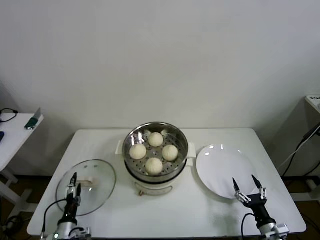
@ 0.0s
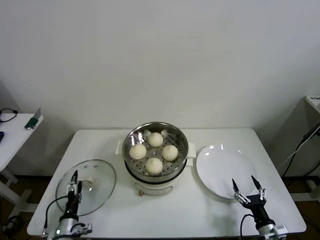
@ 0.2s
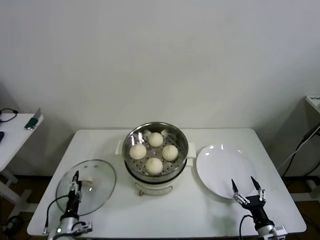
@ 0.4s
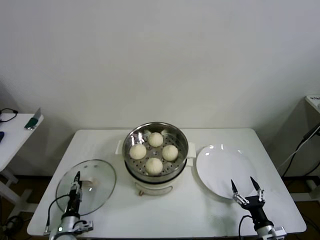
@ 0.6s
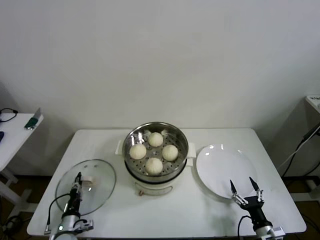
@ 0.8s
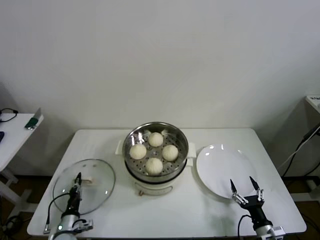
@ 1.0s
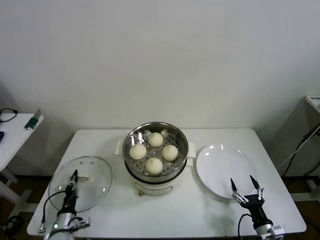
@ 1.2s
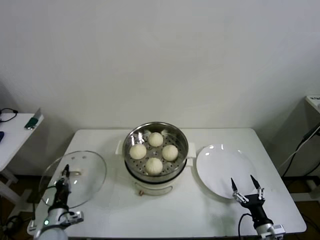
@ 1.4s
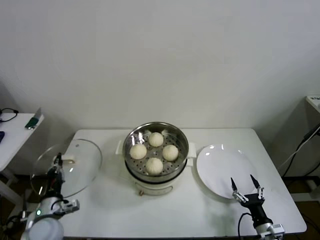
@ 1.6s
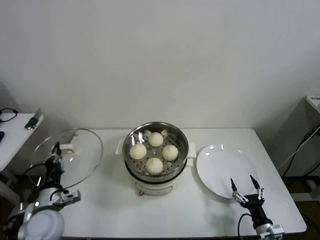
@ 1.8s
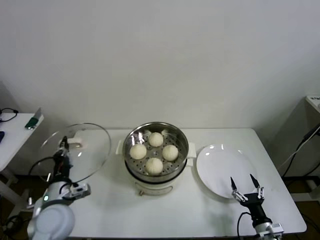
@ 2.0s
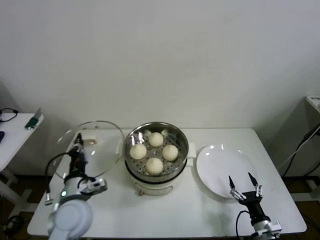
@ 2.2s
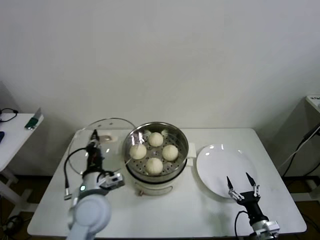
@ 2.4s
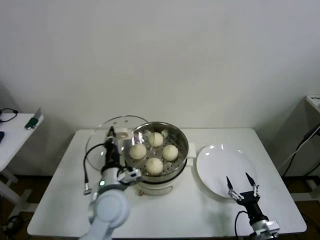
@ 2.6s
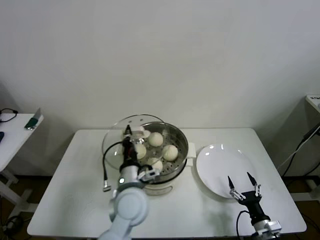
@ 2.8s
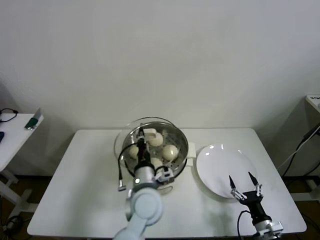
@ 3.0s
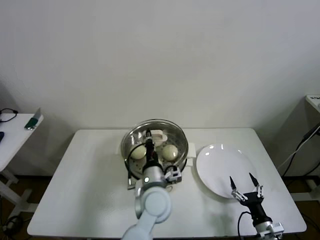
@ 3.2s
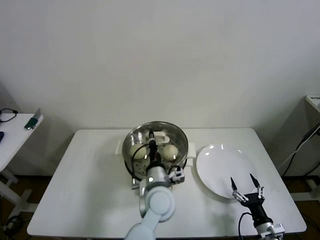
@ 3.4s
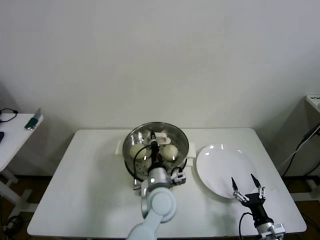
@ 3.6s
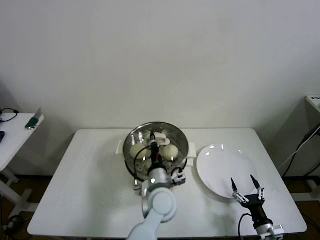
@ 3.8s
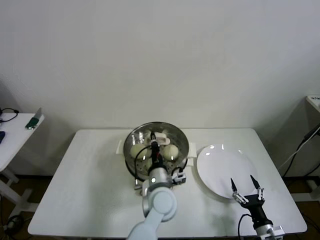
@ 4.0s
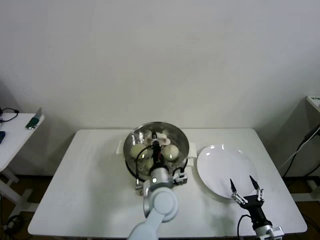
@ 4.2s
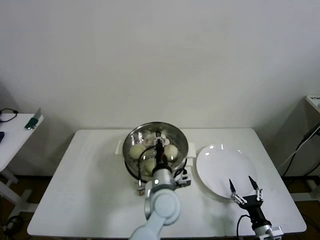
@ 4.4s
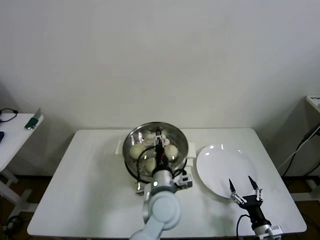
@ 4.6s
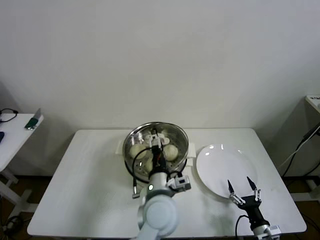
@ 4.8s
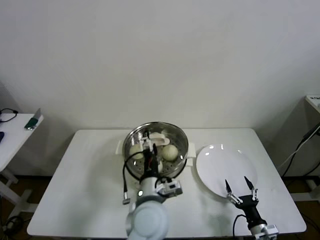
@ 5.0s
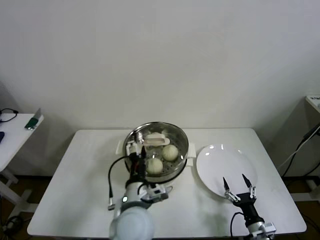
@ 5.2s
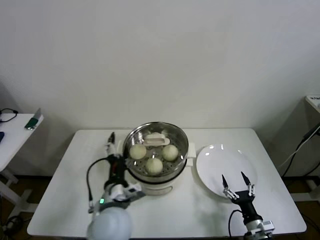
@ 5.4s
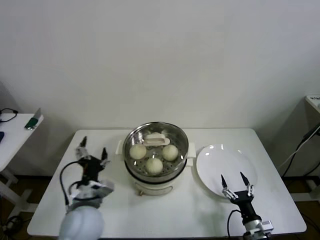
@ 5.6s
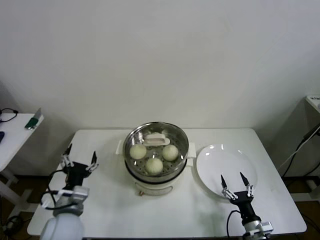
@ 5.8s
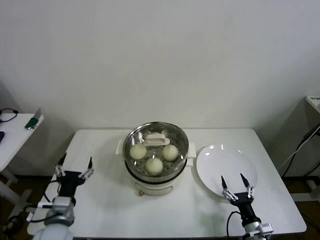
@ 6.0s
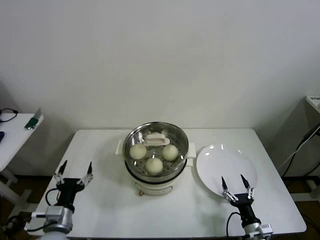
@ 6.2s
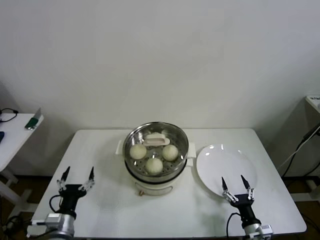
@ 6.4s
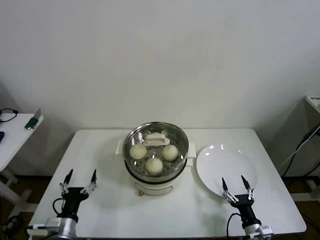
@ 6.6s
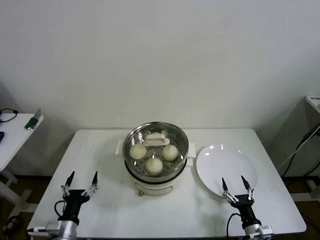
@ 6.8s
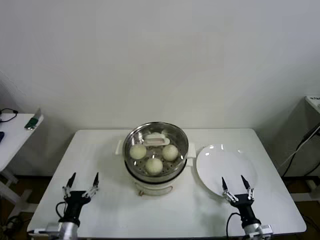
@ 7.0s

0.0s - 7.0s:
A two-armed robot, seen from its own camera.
Step, 1.2s - 4.6s: Place the pot lid on the steamer with left gripper.
0.0s - 1.4s: The left gripper closes.
1.4s - 2.8s: The left gripper is displaced to the right and upward by roughly 30 cm.
2.8s - 4.2s: The left gripper shifts about 10 cm to the right and downward.
4.2s - 5.6s: The left gripper heads to the left and backward, covering roughly 20 cm, and opens its fingers.
5.6s - 7.0s: The left gripper goes approximately 20 cm to the left, downward and backward.

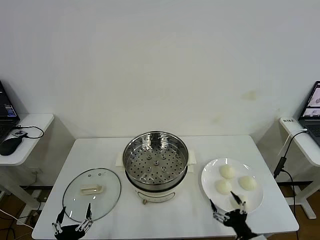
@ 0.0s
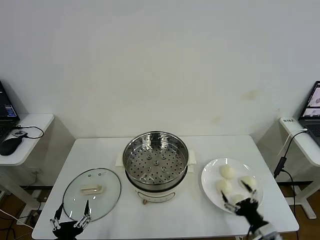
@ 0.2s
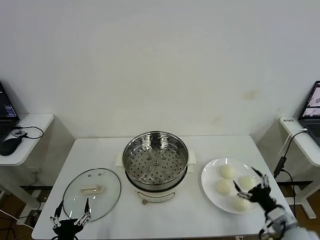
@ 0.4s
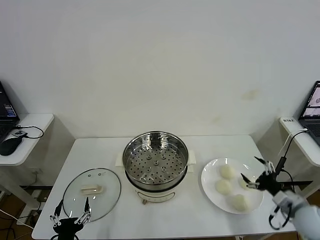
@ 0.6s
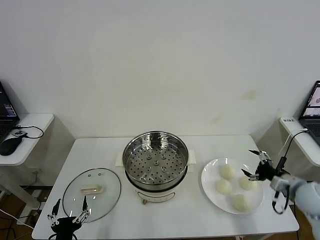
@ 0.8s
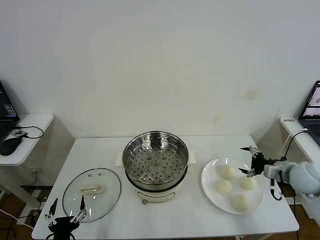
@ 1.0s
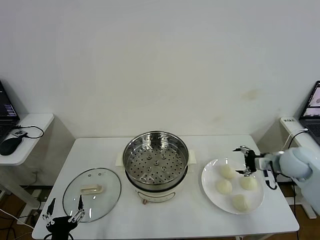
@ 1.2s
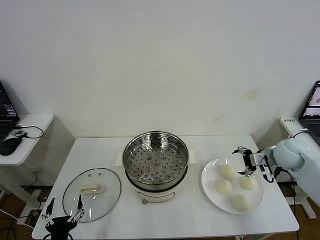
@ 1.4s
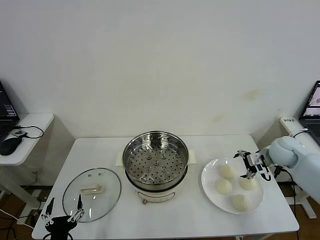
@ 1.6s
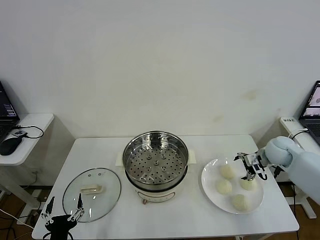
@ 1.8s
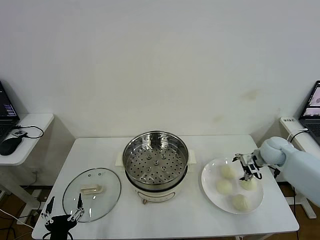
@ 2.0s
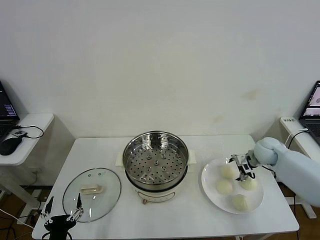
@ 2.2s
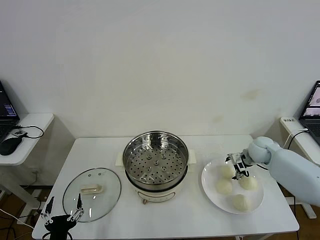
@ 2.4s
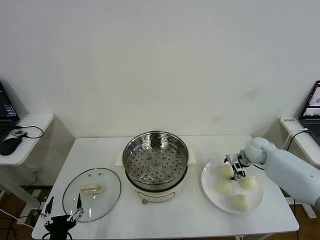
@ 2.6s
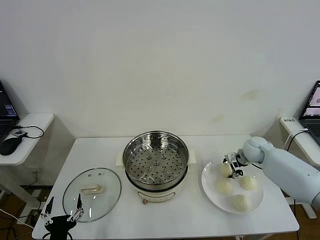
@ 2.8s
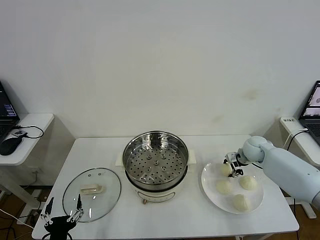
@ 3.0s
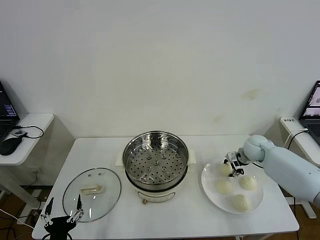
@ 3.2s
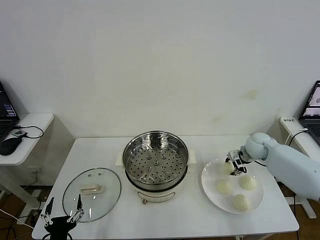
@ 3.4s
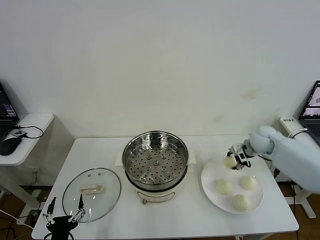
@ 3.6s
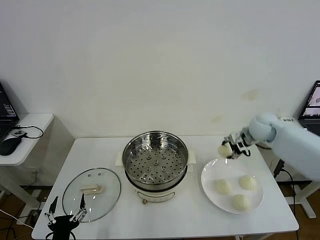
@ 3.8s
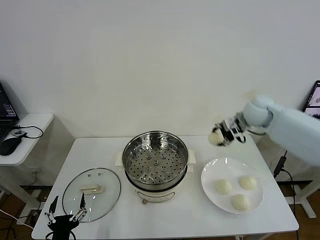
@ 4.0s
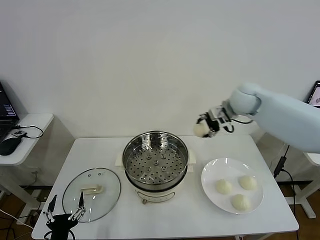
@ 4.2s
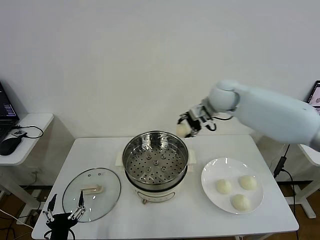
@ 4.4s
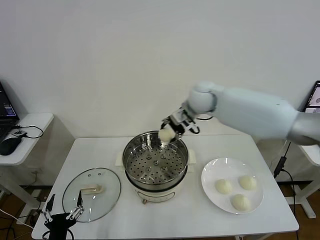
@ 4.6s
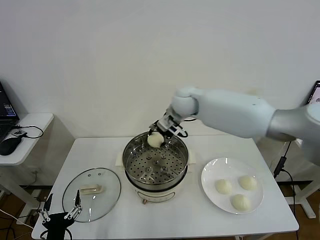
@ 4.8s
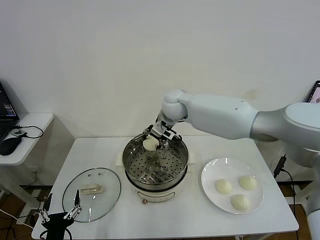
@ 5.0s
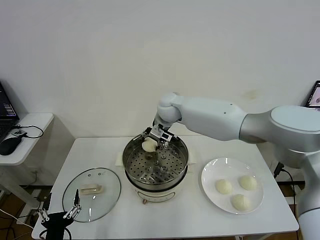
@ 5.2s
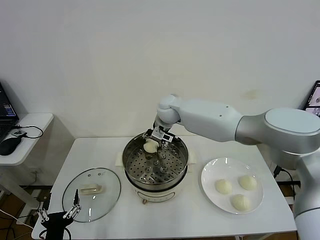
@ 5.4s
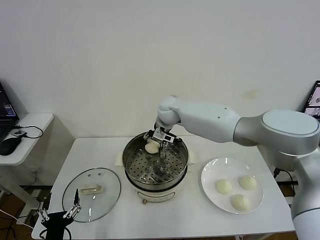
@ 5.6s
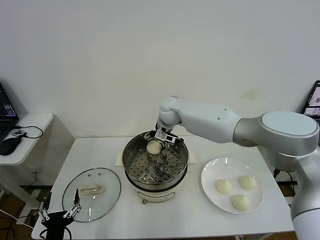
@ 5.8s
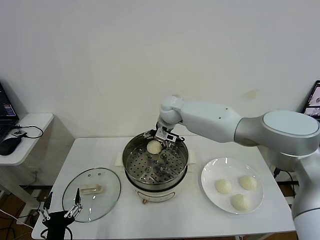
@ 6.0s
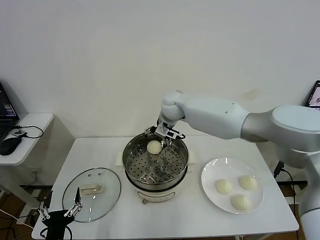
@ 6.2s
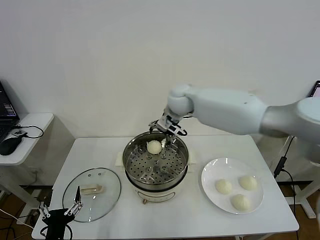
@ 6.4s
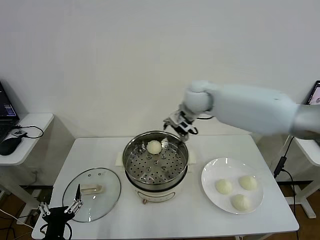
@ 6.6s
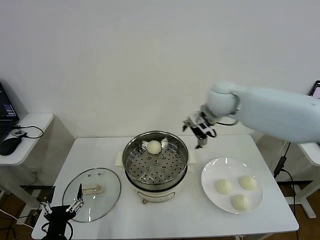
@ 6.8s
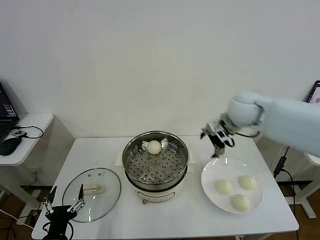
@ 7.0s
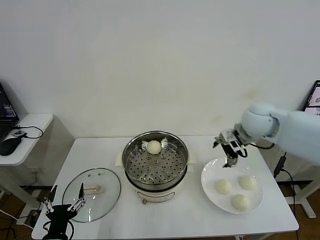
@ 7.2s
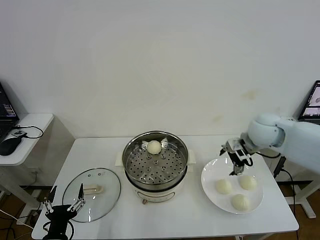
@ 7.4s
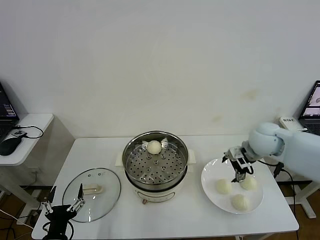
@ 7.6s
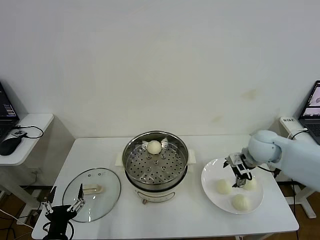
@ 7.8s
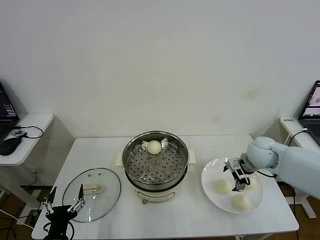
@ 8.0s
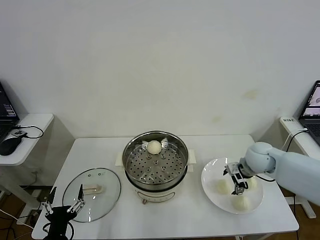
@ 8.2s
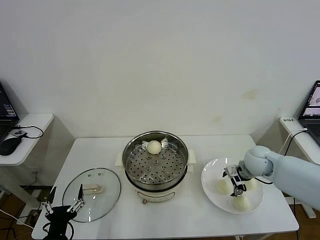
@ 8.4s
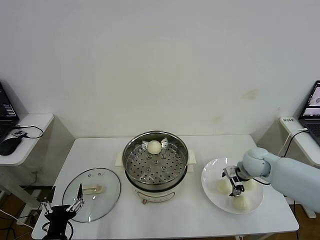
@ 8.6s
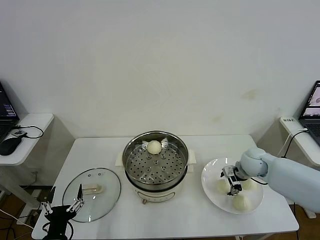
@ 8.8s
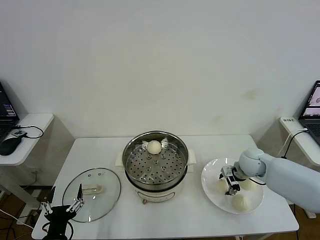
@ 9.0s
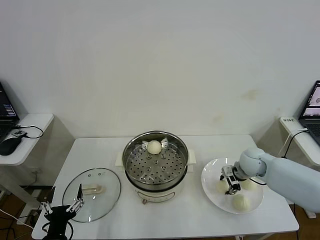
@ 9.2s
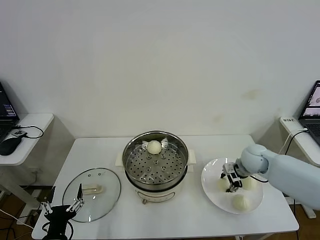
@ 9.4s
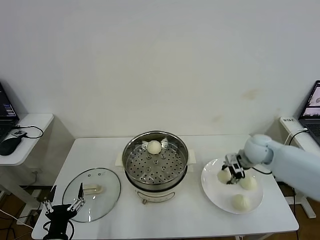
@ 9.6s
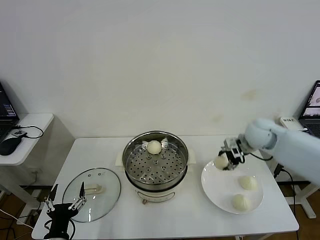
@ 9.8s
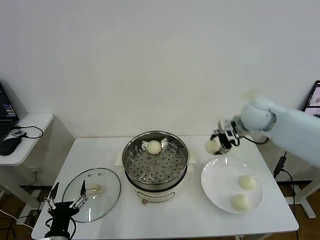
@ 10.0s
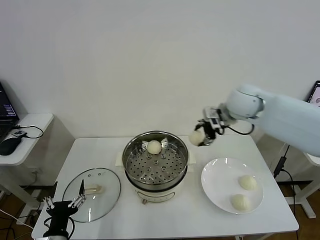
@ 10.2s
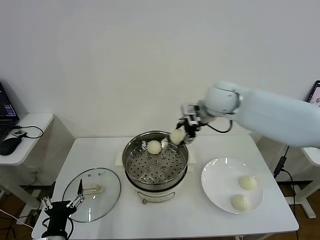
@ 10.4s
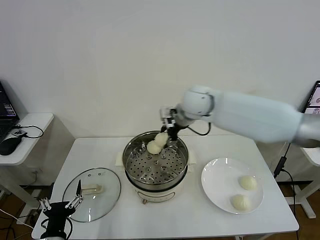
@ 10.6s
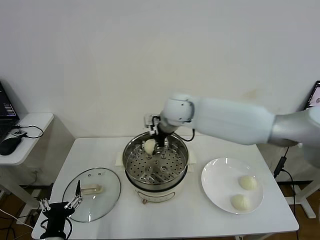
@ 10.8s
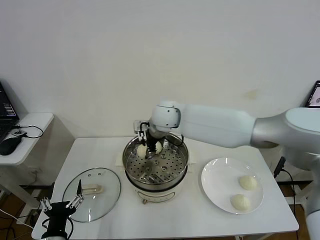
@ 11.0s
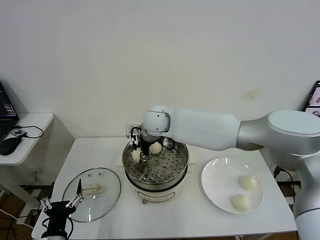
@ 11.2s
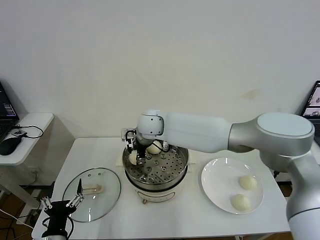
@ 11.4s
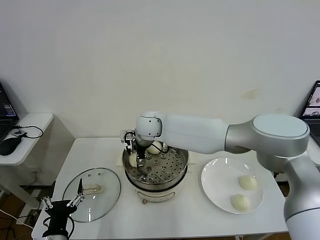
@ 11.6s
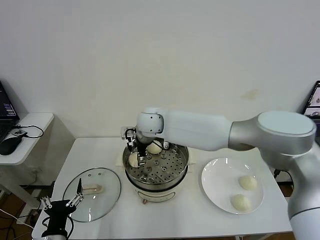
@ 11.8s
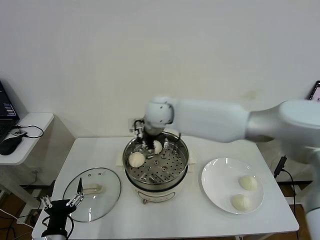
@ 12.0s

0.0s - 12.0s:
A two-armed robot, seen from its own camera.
Step, 0.0s - 3.0s: Grasp the baozi in the plate with right gripper.
Step, 3.2s - 5.8s: Place the baozi on the steamer with right gripper.
Step, 6.0s - 9.0s: Grasp the baozi in the plate with right gripper.
Step, 9.4s - 11.8s: Place the baozi on the steamer with right gripper.
1.6s - 3.0s: The right gripper shifts some 10 cm downward and forward, and closes.
3.0s - 4.4s: The right gripper moves upward and to the left, about 30 cm.
4.4s - 6.0s: The right gripper travels to the left and downward by roughly 15 cm, and opens its fingers.
6.0s - 7.6s: The right gripper shifts some 30 cm to the right and backward.
7.6s - 9.0s: The right gripper shifts roughly 10 cm downward, and closes up.
9.0s - 10.4s: The right gripper is displaced upward and to the left by some 30 cm.
10.4s - 12.0s: The right gripper heads to the left, covering approximately 10 cm, and opens.

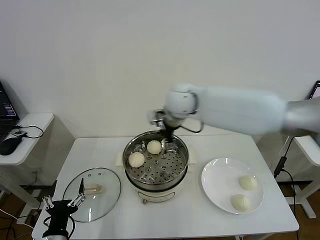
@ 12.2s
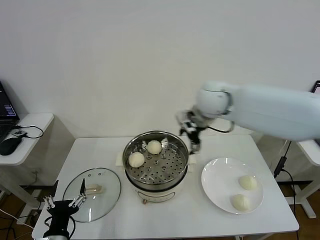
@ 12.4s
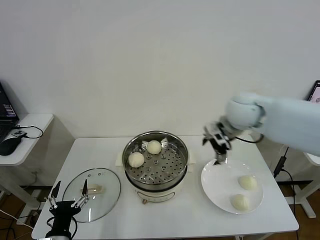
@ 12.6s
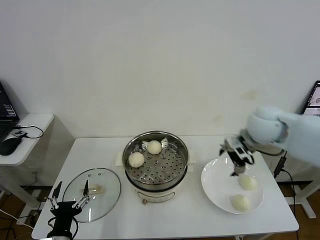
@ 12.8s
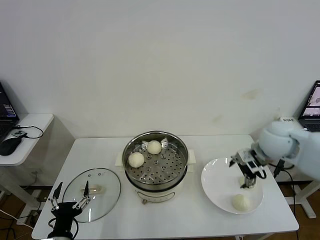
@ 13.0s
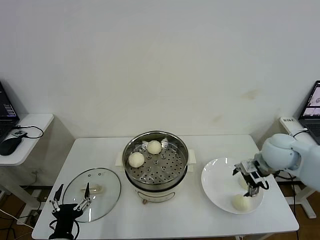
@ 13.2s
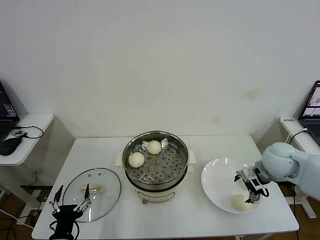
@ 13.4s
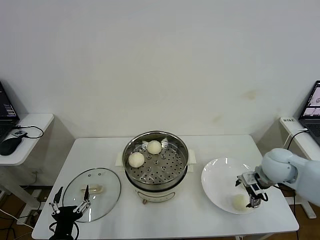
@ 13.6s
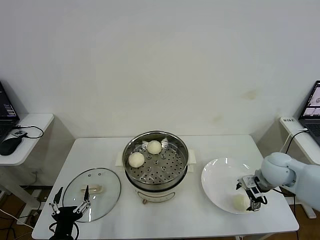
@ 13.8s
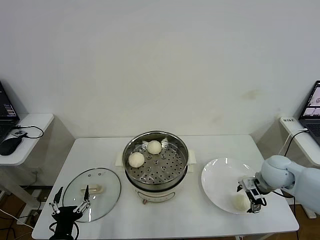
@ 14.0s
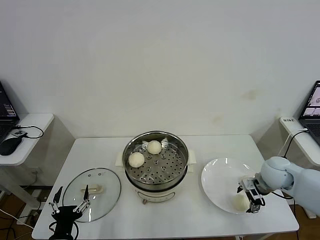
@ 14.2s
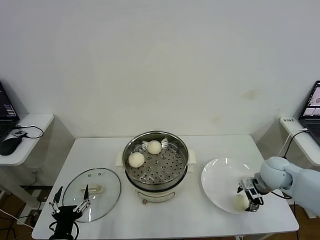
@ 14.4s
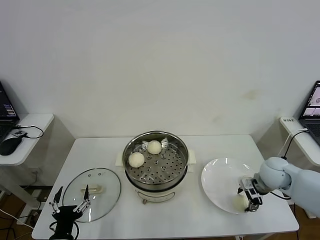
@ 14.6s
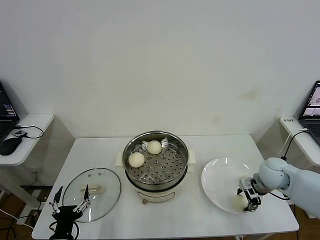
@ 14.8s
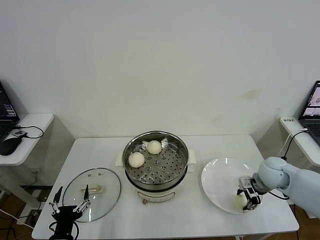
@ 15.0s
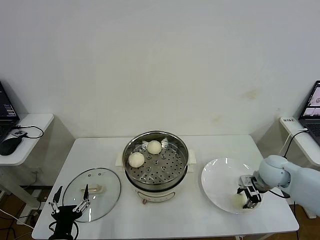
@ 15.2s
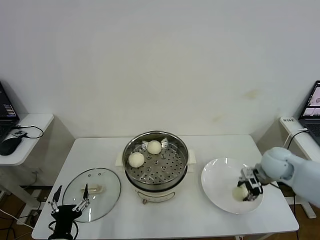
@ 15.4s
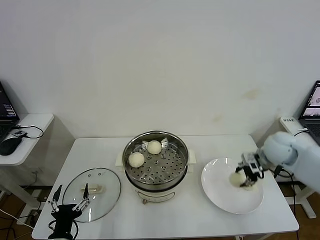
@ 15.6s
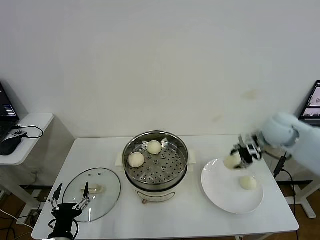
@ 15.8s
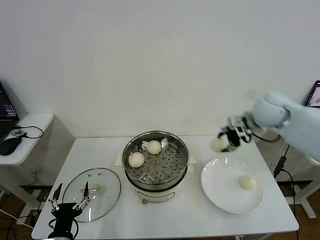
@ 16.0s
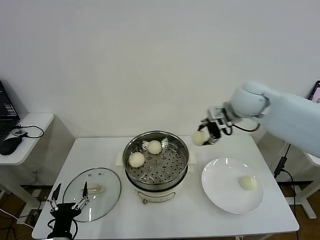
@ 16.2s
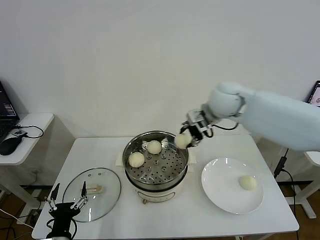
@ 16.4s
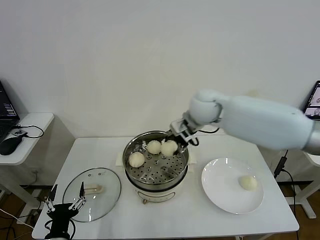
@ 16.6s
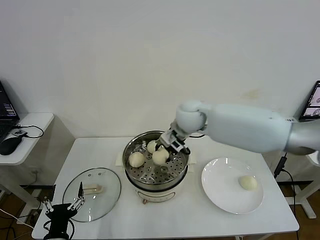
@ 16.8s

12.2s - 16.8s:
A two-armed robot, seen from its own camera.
Step, 12.2s - 14.8s: Grasp the baozi in the plate with right gripper.
12.2s - 13.8s: The right gripper moves to the right, downward and backward, roughly 35 cm.
13.8s - 15.2s: The right gripper closes up.
15.2s - 16.8s: The right gripper goes some 35 cm to the left and upward.
